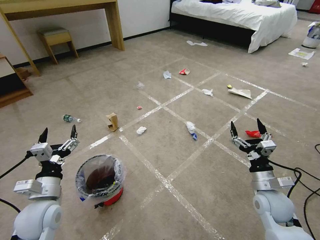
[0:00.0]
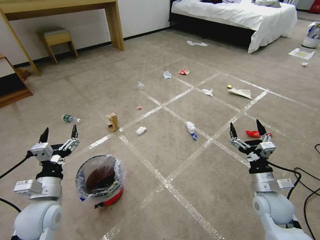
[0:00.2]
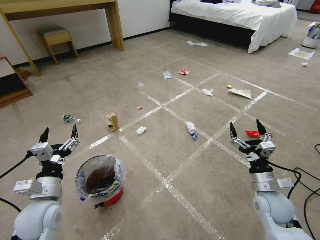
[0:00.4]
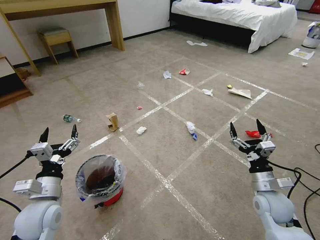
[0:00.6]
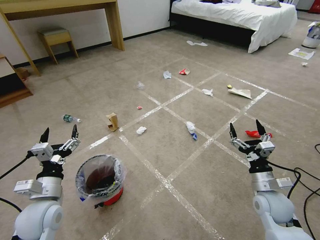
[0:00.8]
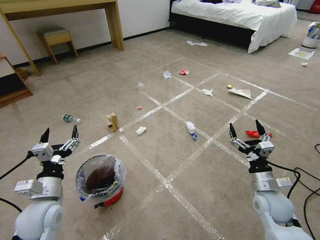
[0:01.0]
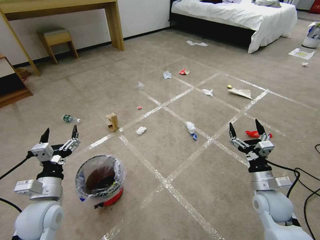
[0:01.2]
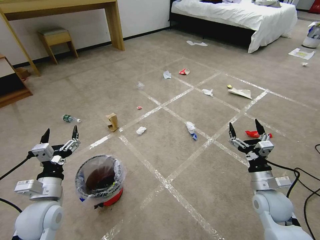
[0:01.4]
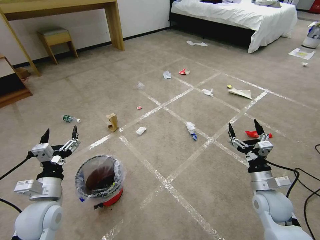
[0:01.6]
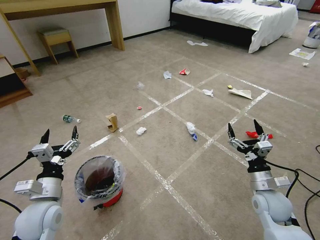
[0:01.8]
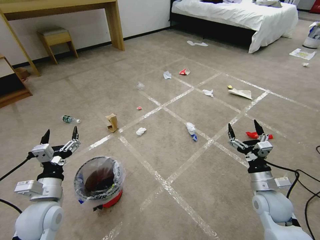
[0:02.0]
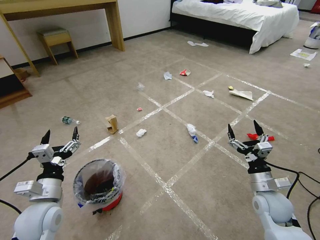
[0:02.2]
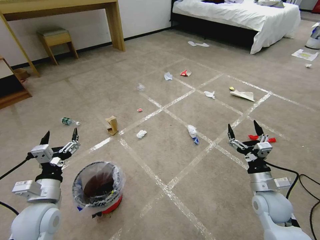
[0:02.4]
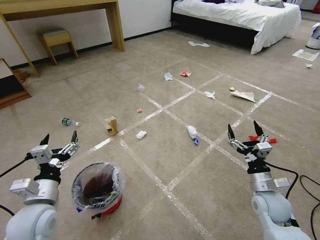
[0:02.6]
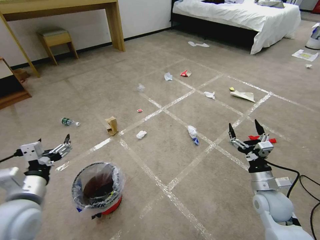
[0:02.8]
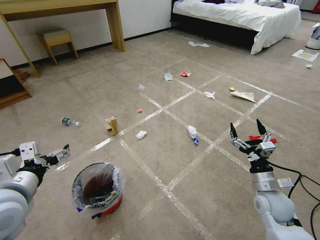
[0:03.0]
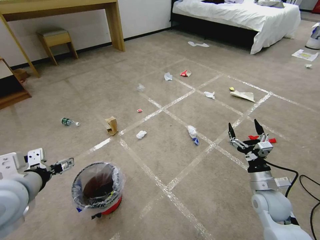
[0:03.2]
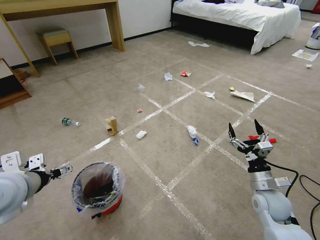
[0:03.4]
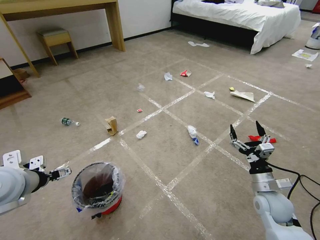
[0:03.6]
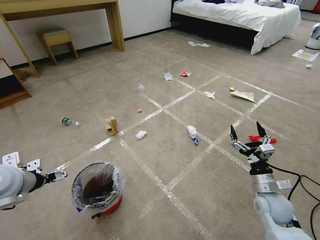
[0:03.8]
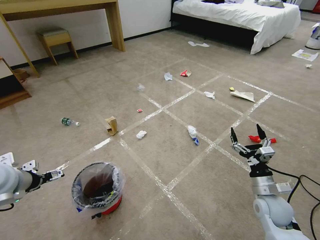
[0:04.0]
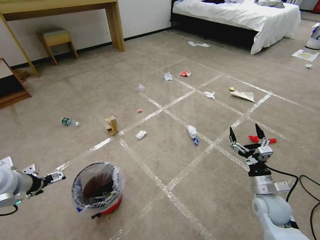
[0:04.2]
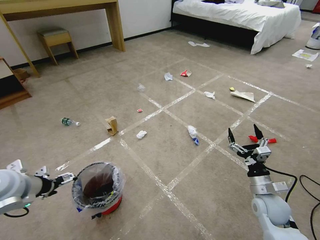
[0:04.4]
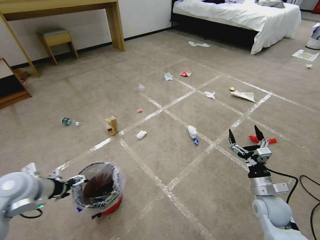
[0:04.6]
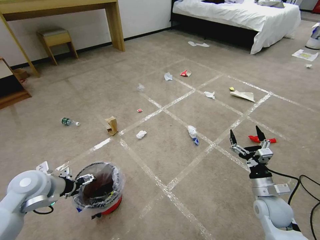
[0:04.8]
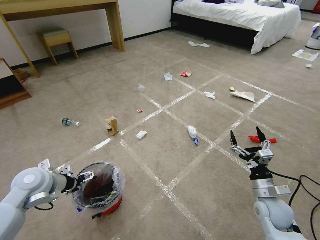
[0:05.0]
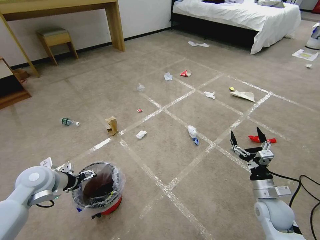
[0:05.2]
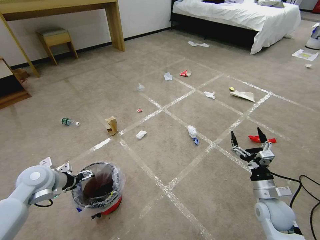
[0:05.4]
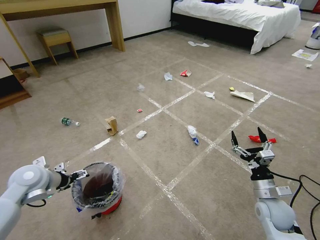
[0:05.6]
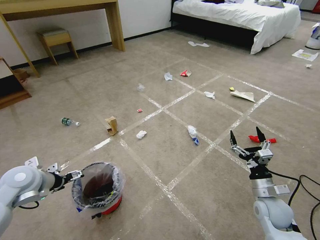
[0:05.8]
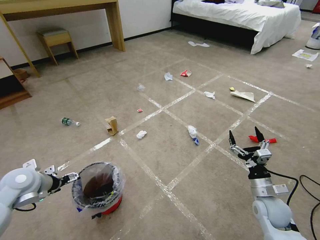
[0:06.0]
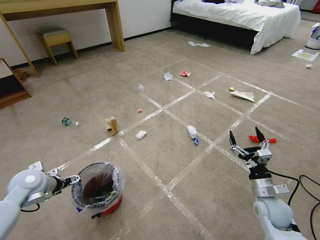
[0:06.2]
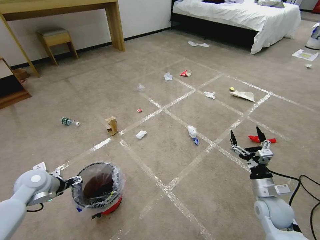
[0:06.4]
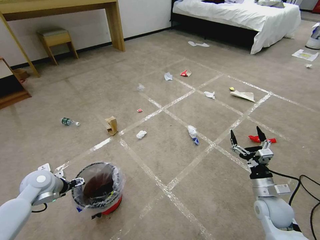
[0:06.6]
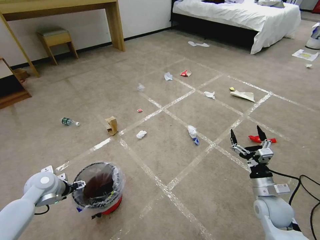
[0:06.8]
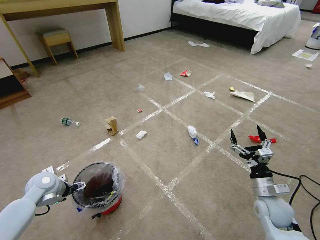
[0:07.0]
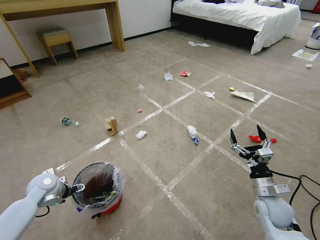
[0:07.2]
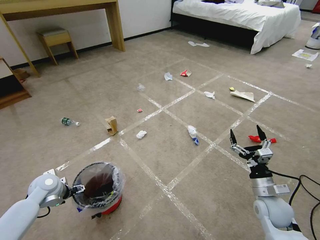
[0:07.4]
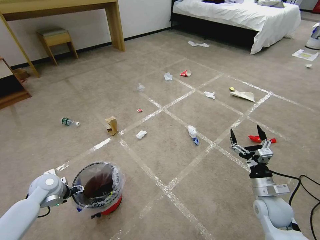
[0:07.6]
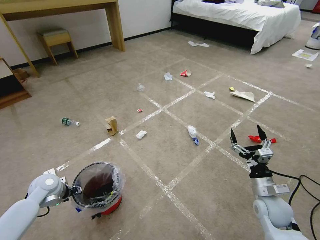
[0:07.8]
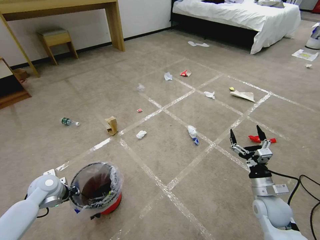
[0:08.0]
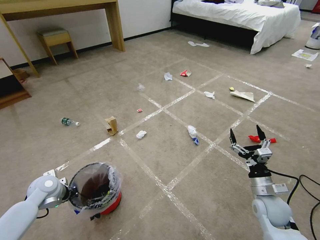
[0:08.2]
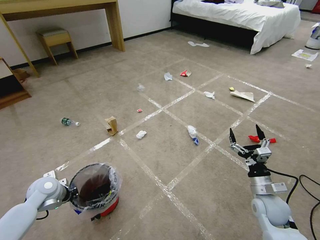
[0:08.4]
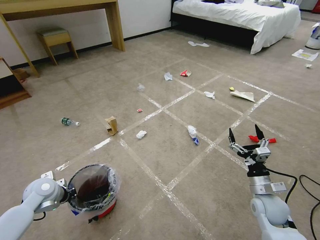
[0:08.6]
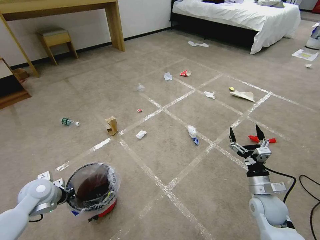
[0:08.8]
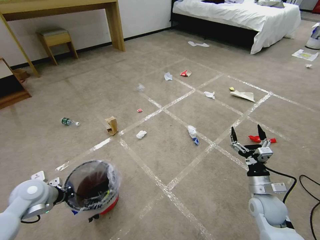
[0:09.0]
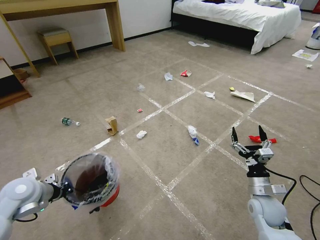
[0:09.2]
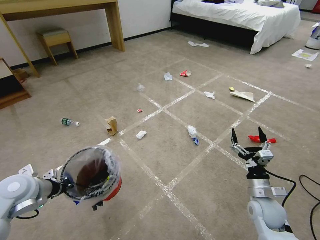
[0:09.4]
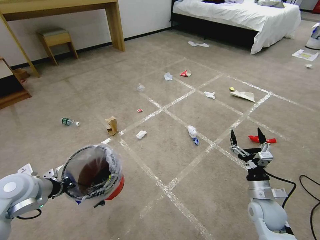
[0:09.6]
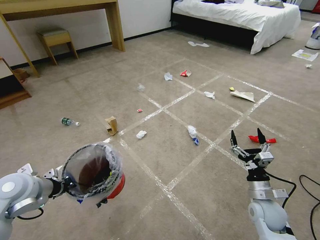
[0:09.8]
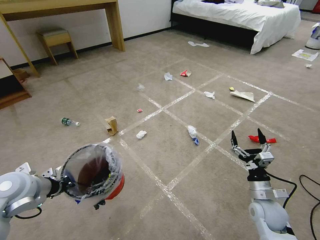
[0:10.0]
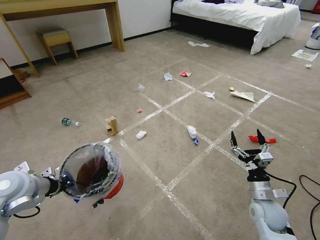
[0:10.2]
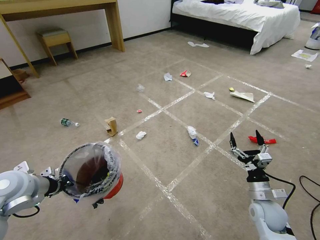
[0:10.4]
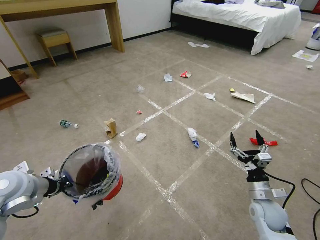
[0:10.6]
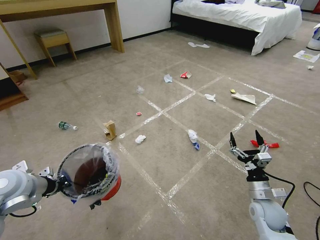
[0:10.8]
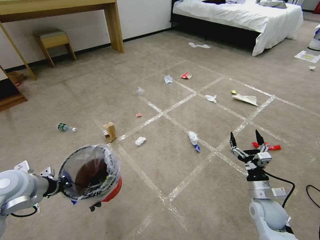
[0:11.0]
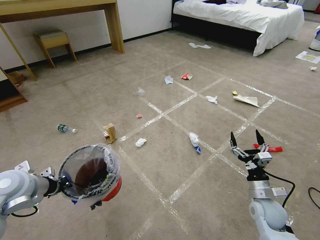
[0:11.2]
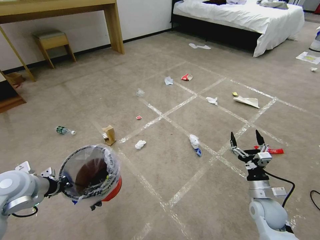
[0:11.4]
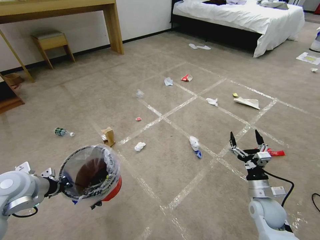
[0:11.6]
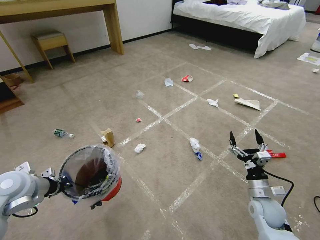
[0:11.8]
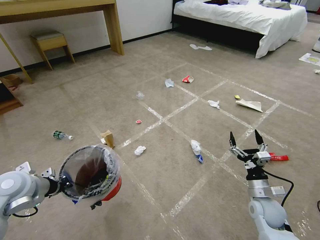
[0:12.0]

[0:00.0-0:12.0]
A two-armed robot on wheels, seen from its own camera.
Task of the whole recording: Pick up the trash bin and place the garbage on the floor into it.
0:01.6 to 0:03.0: The left gripper is displaced upward by about 15 cm.
0:03.0 to 0:04.4: The left gripper heads to the left, forward and downward, covering approximately 10 cm.
0:06.0 to 0:07.6: The left gripper heads downward, covering approximately 10 cm.
0:07.6 to 0:09.0: The left gripper travels upward by roughly 5 cm, and closes its fingers.
0:09.0 to 0:10.4: The left gripper is displaced upward by some 10 cm.
0:10.4 to 0:12.0: Both grippers stay about where they are.

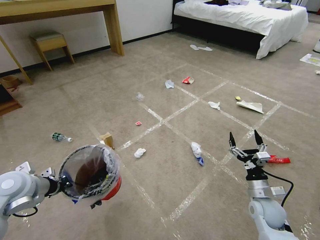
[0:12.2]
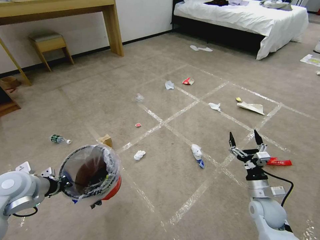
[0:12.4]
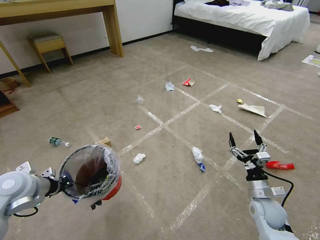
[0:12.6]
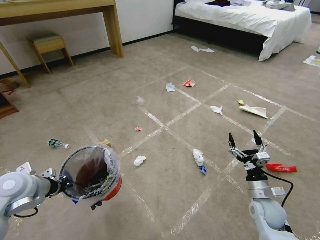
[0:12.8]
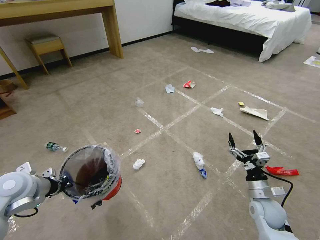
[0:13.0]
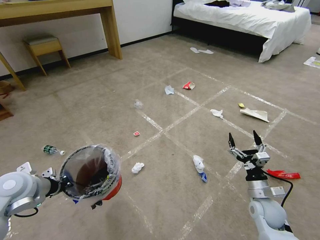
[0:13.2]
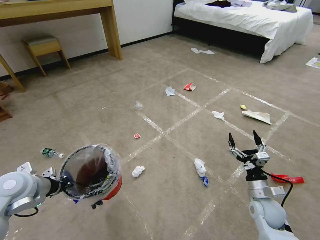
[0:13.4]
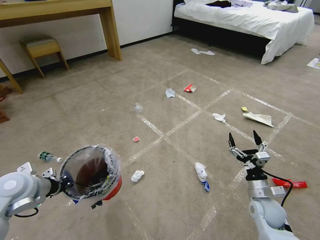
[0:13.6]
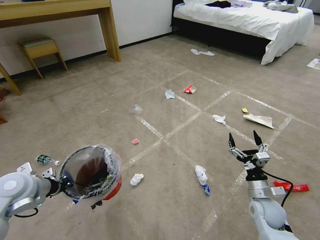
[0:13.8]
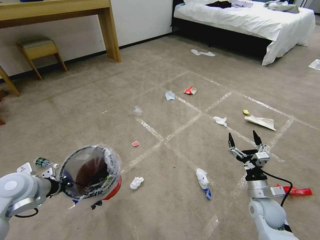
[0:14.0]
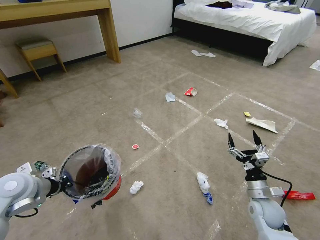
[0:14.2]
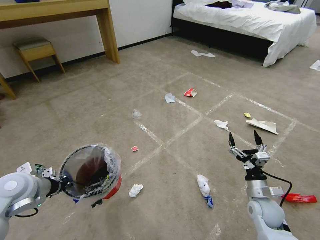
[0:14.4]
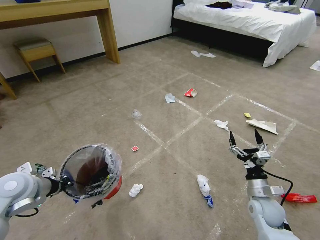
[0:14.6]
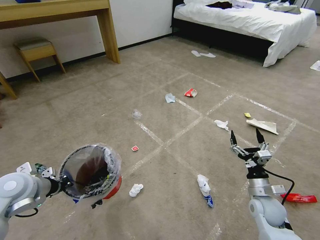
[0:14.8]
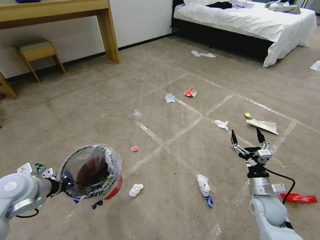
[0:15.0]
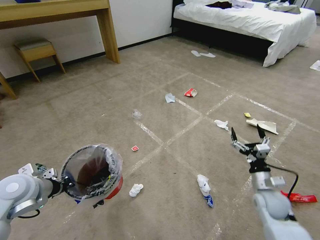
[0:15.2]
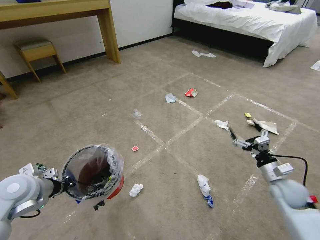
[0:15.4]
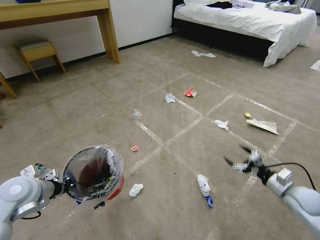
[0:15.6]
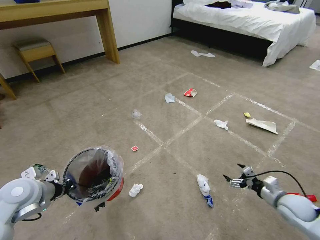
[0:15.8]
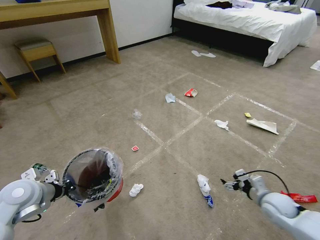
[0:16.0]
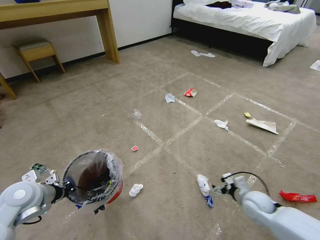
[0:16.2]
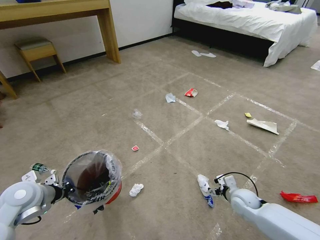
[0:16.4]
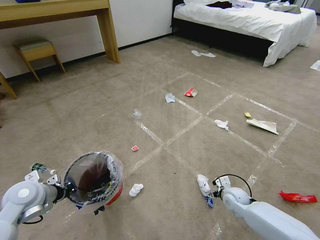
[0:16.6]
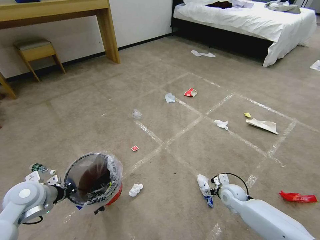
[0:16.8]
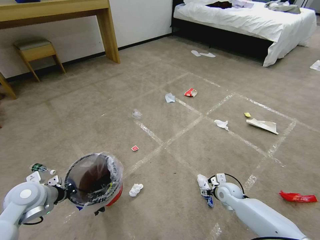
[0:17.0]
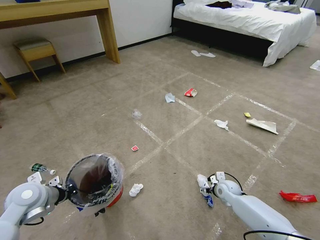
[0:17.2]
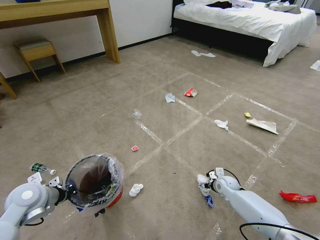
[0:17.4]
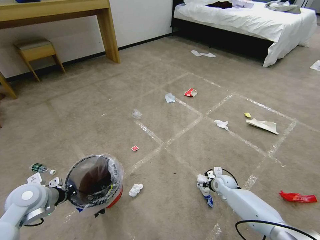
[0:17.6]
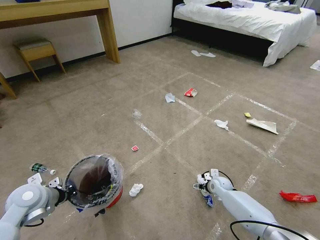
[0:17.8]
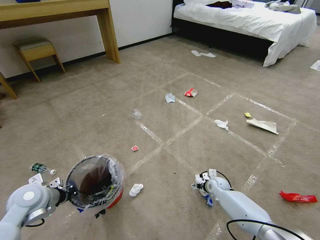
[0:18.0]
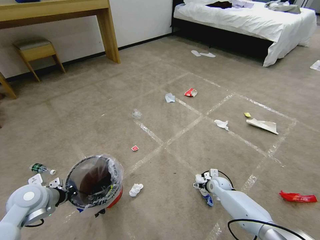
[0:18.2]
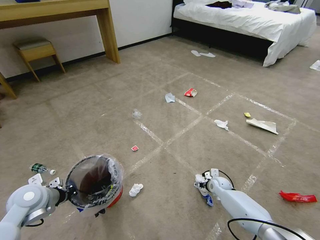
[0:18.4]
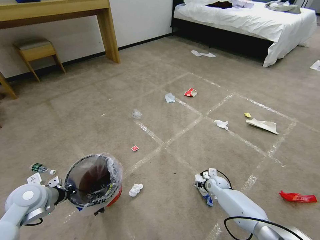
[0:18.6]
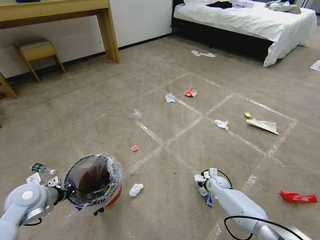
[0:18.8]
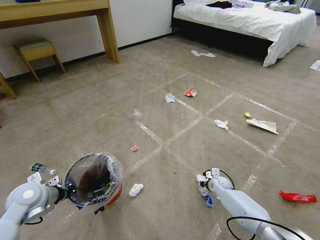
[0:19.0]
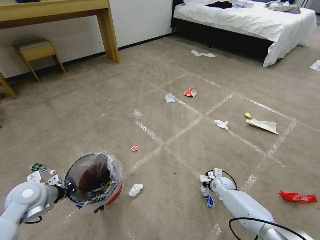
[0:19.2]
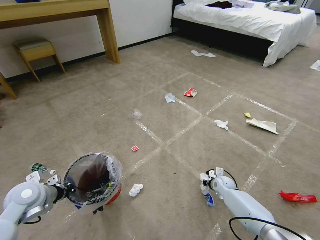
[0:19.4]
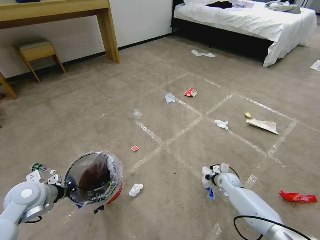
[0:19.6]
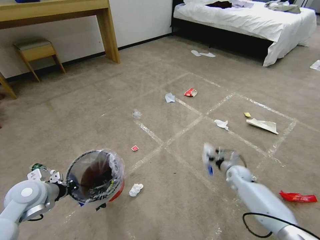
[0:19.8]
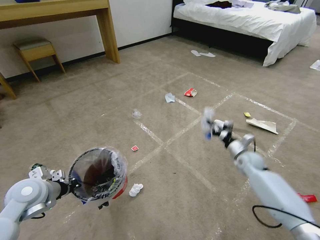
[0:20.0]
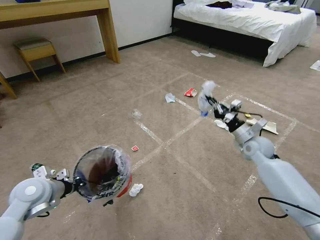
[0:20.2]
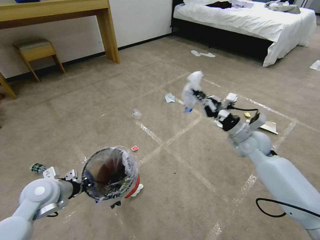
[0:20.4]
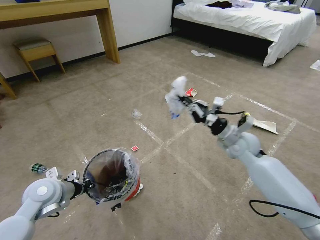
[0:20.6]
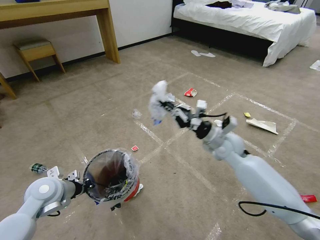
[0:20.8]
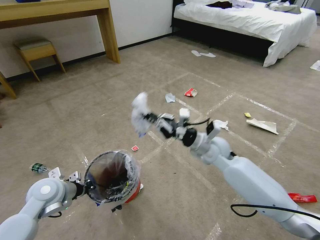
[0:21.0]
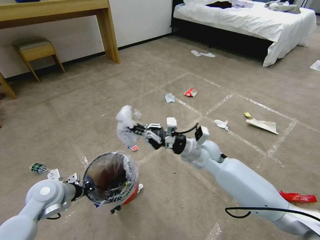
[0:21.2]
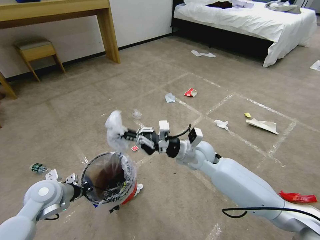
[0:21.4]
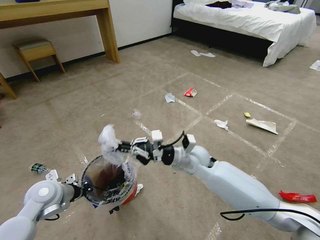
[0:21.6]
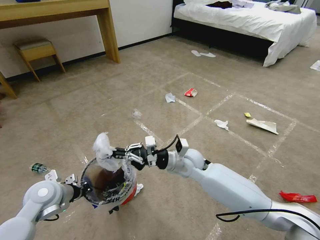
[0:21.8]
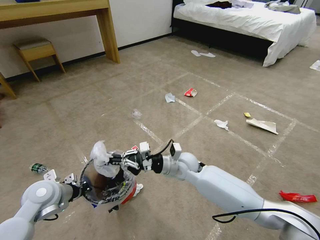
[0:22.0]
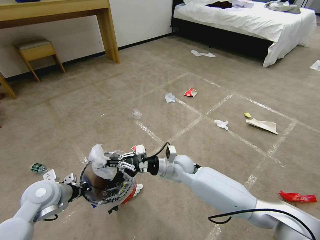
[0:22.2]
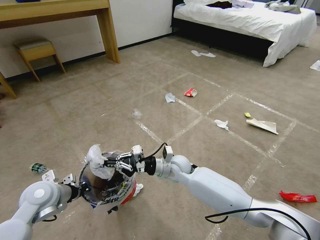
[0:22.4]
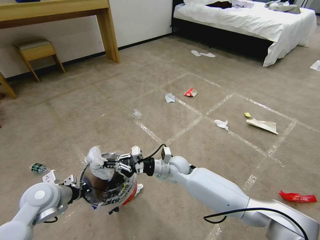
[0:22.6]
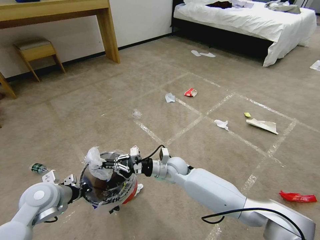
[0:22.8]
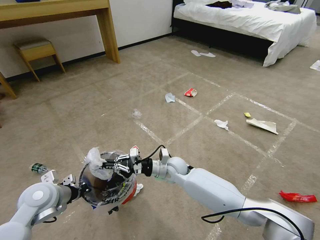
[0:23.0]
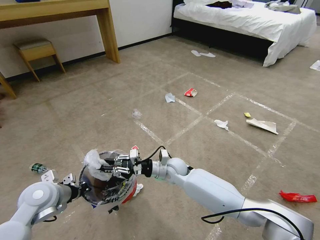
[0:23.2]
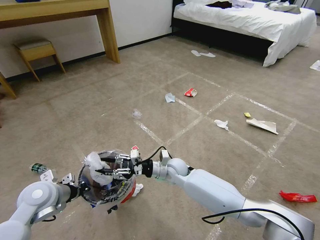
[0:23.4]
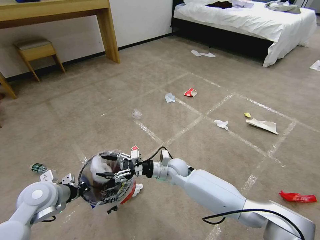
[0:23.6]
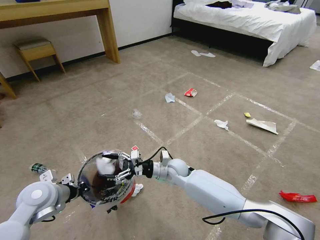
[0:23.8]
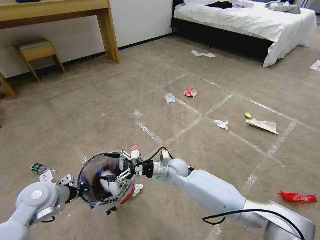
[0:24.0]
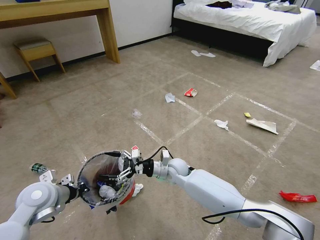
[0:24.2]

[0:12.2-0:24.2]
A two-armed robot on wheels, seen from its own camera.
Task of the whole recording: Pick up the trash bin and place the garbage on the floor into it.
0:12.2 to 0:13.8: The two grippers keep their place.
0:13.8 to 0:15.2: The grippers move only a little.
0:15.2 to 0:16.6: The right gripper moves downward and to the left, roughly 10 cm.
0:16.6 to 0:18.2: The right gripper is displaced forward and downward by approximately 10 cm.
0:18.2 to 0:19.8: The right gripper heads upward and to the right, covering about 10 cm, and closes up.
0:19.8 to 0:21.2: The right gripper moves to the left and upward, roughly 30 cm.
0:21.2 to 0:22.6: The right gripper is displaced downward and to the left by roughly 15 cm.
0:22.6 to 0:24.2: The right gripper opens.
